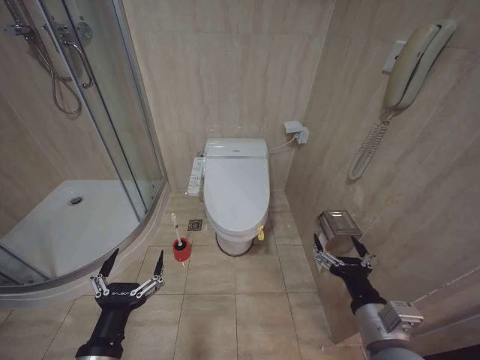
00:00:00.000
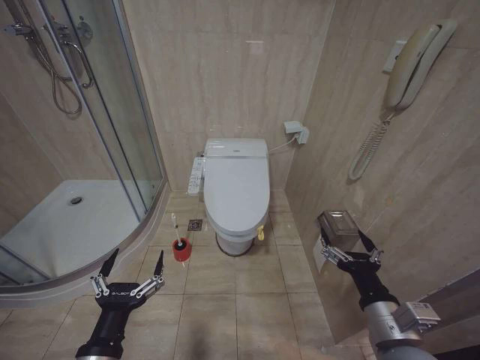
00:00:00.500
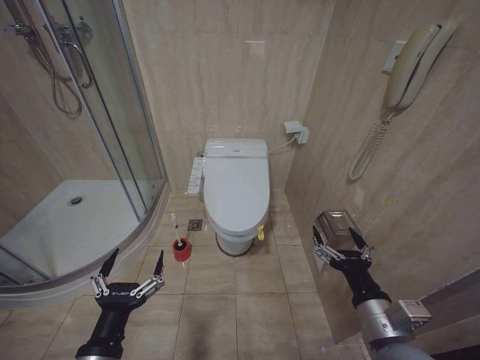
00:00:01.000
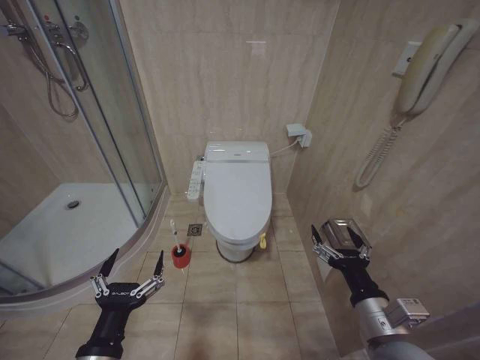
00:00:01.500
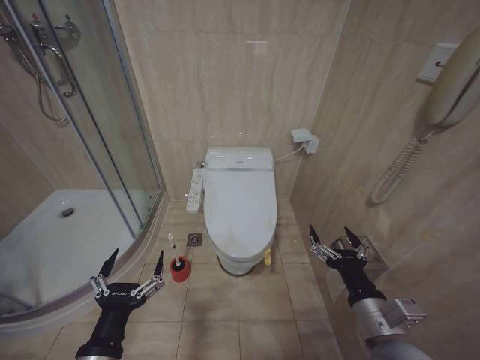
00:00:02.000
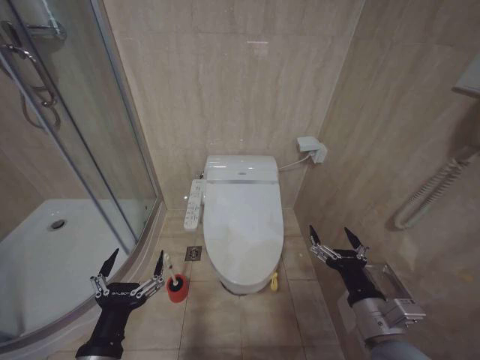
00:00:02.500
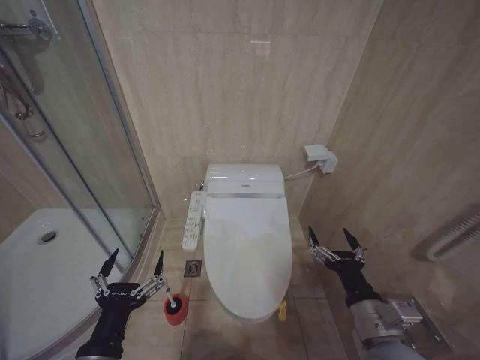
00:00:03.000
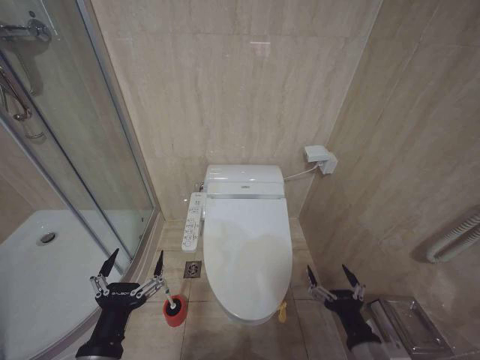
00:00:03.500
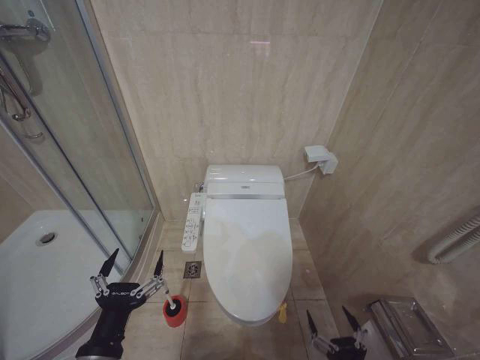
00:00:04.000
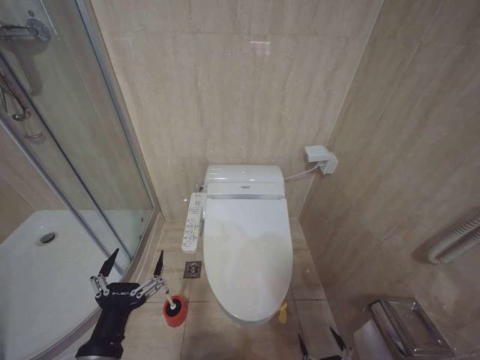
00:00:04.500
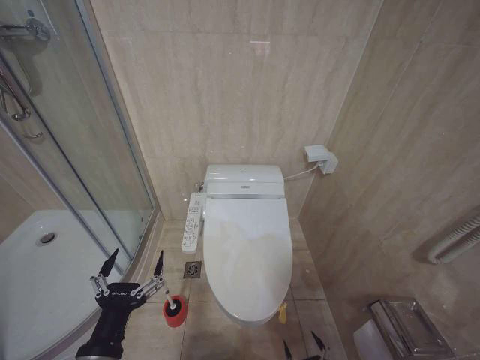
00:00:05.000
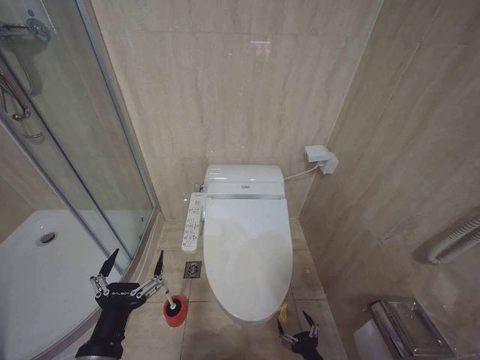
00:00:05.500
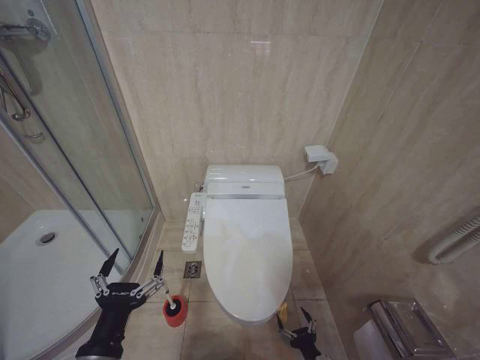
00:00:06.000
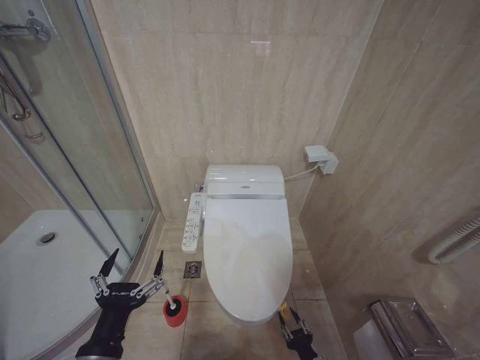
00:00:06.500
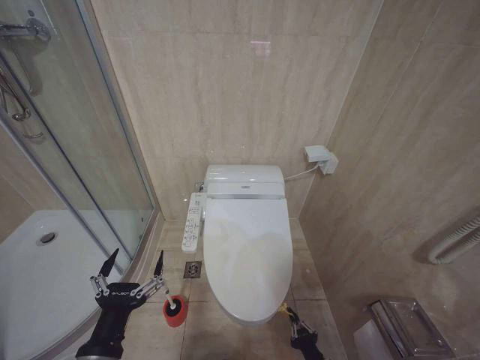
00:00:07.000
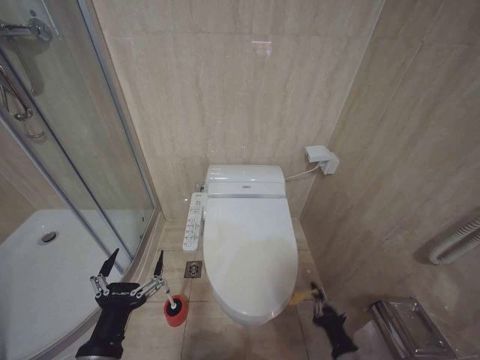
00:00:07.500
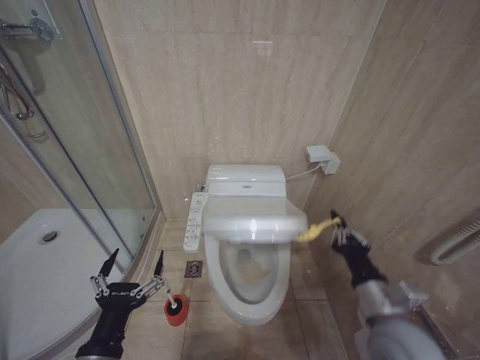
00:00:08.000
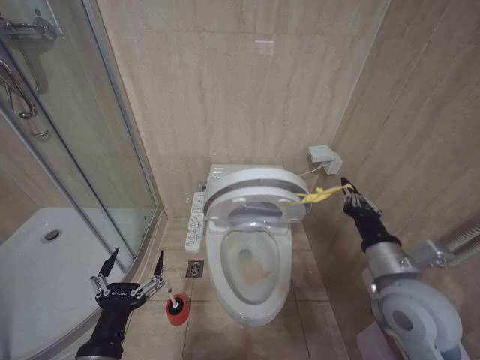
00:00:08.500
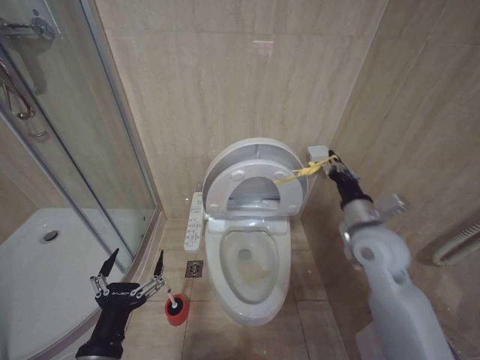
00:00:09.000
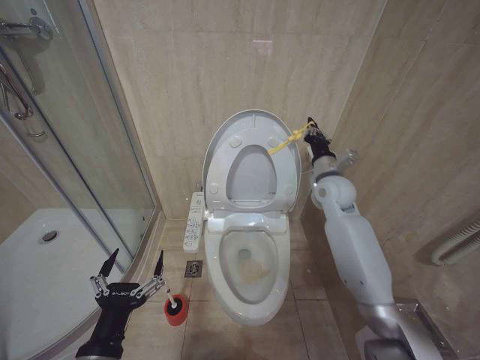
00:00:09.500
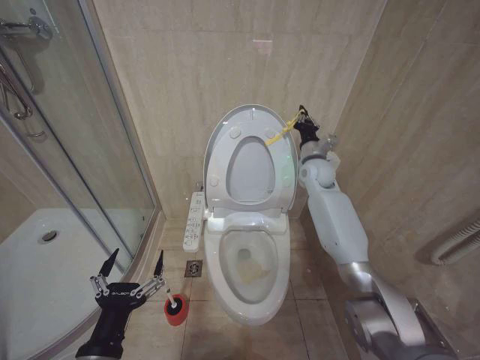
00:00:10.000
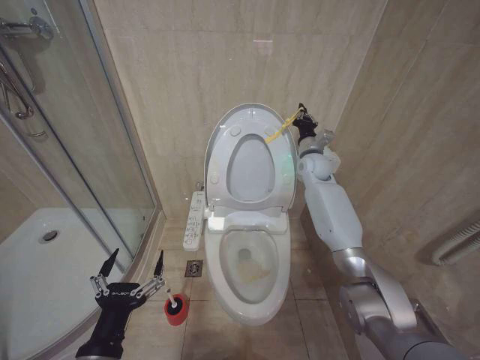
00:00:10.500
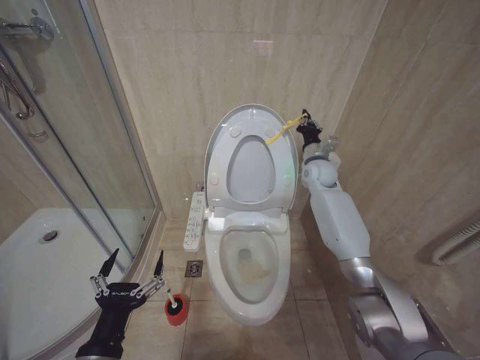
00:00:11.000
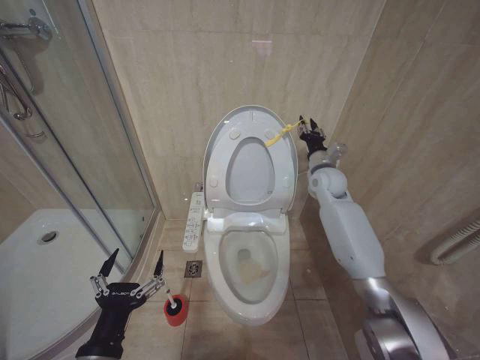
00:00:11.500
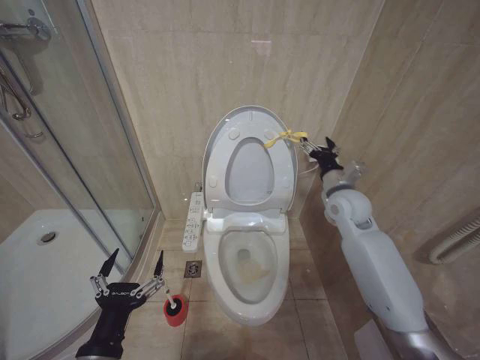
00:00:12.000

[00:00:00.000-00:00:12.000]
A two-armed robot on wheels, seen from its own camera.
Task of the whole recording: Open the toilet lid, clean the toilet bowl with a toilet brush, close the toilet lid, and flush.
00:00:02.000 to 00:00:04.000: The right gripper heads downward and backward, covering roughly 20 cm.
00:00:04.000 to 00:00:06.000: The right gripper is displaced downward and forward by about 20 cm.
00:00:06.000 to 00:00:08.000: The right gripper moves upward, approximately 30 cm, and closes its fingers.
00:00:08.000 to 00:00:10.000: The right gripper moves forward, some 35 cm.
00:00:10.000 to 00:00:12.000: The right gripper moves backward, approximately 10 cm, and opens up.

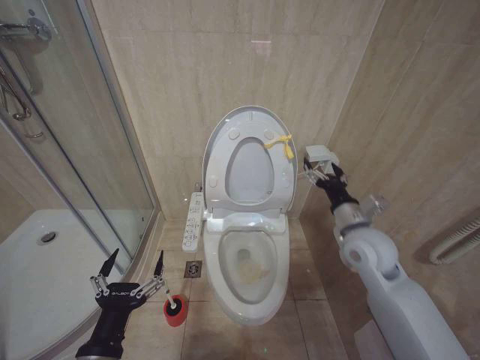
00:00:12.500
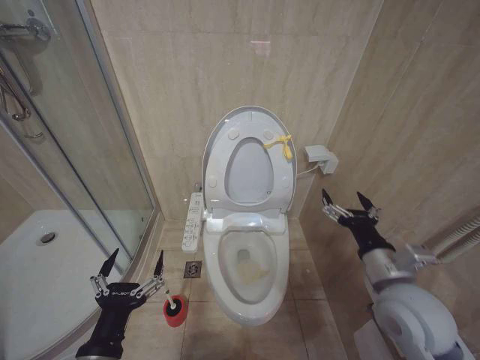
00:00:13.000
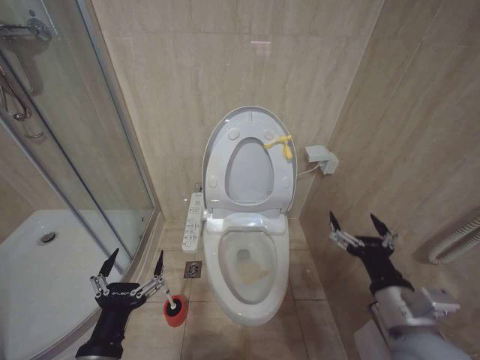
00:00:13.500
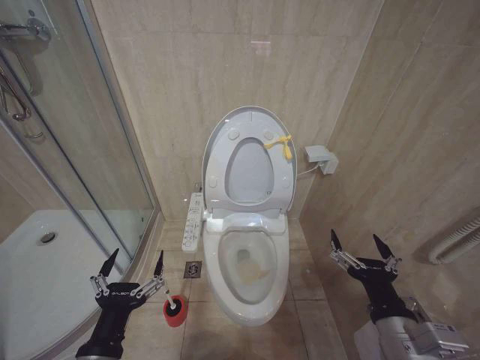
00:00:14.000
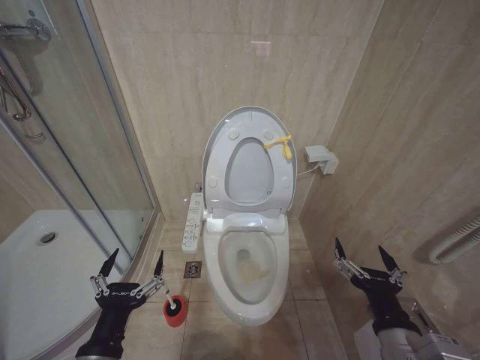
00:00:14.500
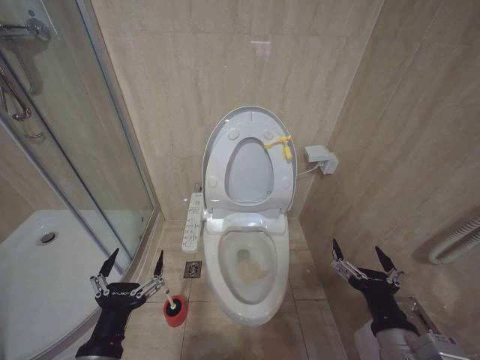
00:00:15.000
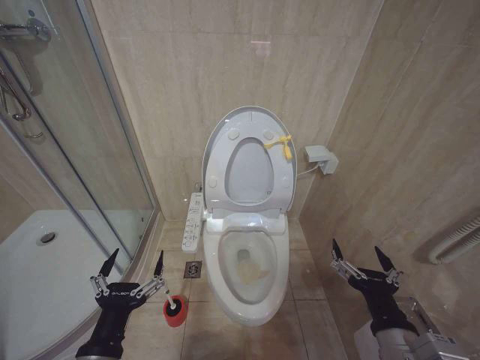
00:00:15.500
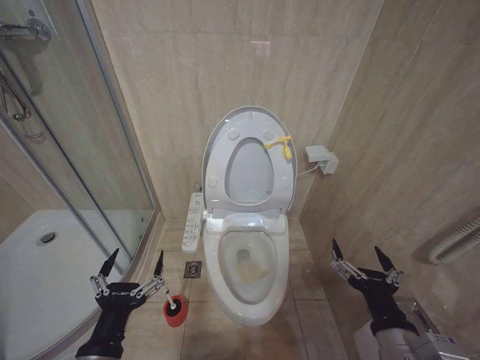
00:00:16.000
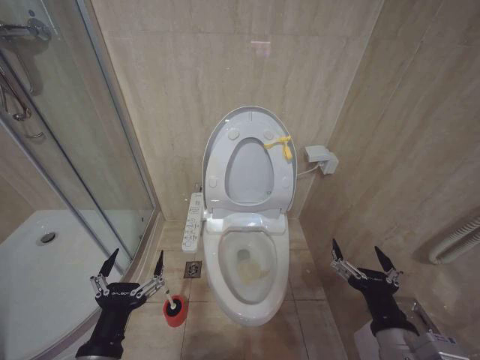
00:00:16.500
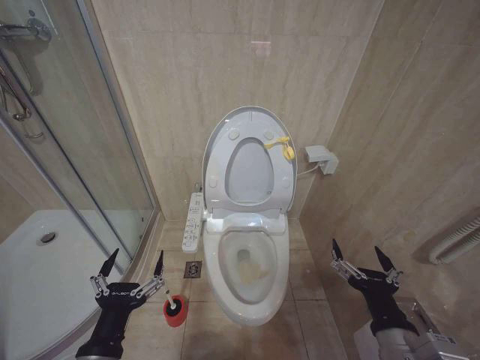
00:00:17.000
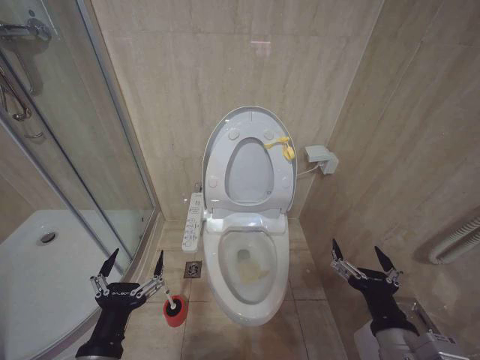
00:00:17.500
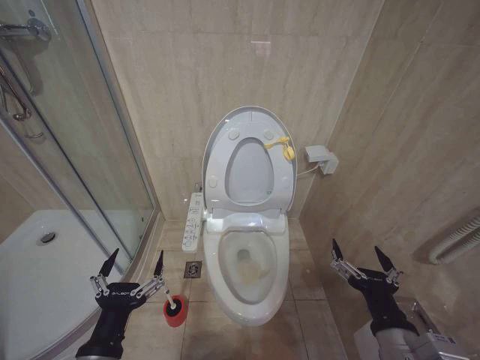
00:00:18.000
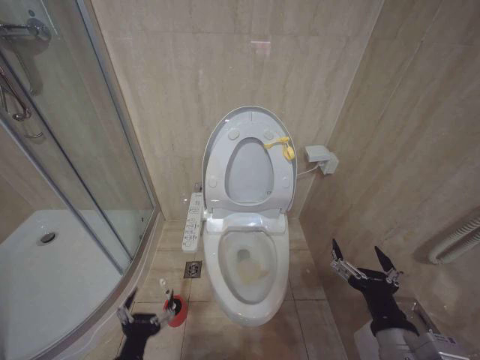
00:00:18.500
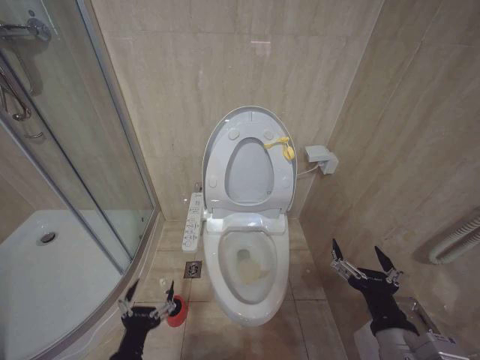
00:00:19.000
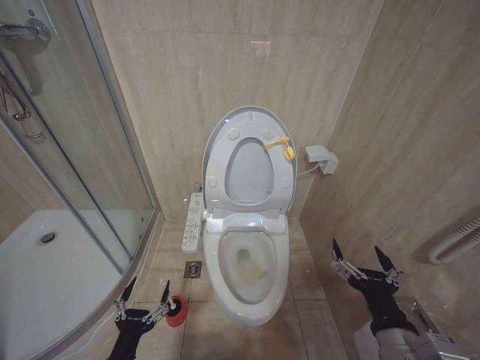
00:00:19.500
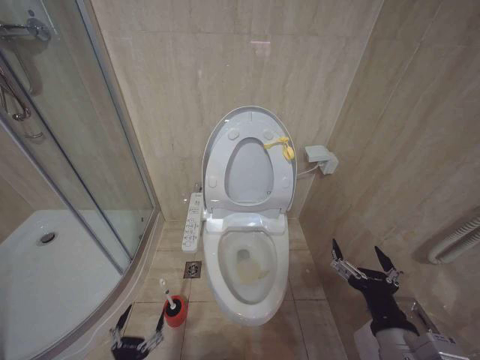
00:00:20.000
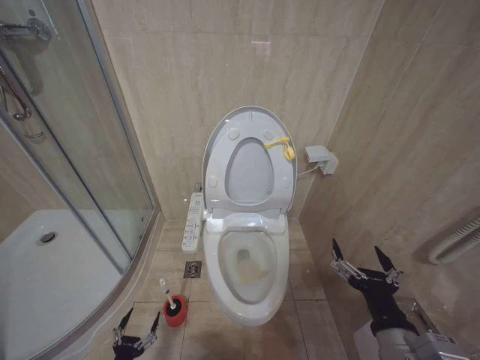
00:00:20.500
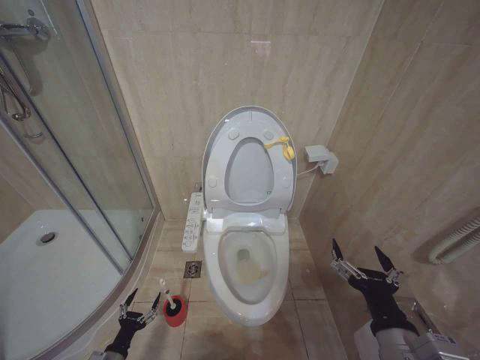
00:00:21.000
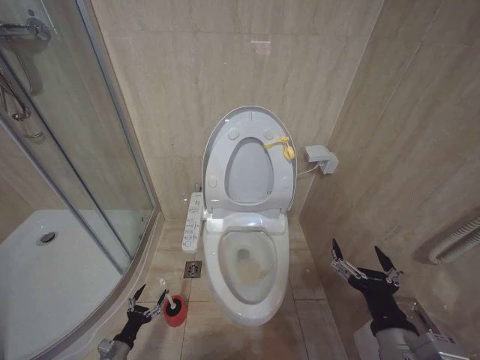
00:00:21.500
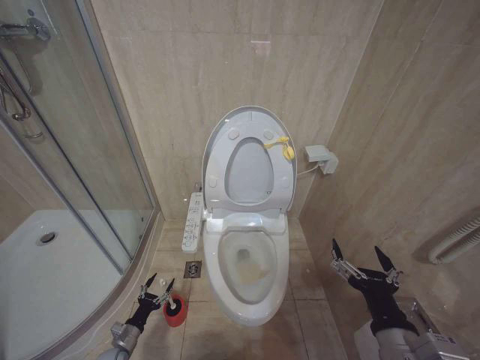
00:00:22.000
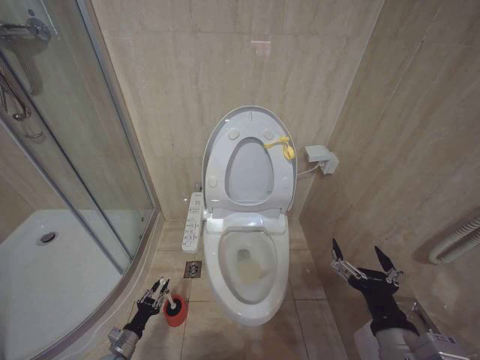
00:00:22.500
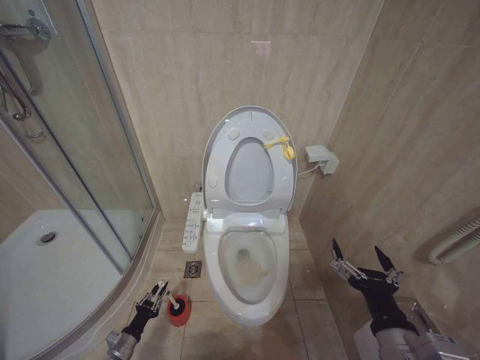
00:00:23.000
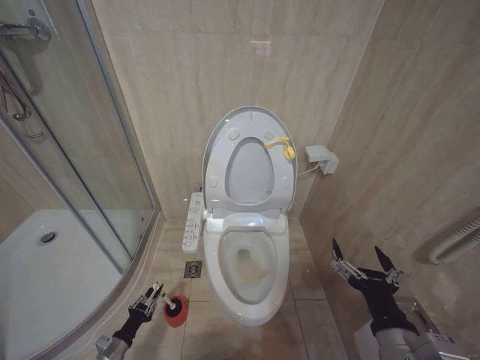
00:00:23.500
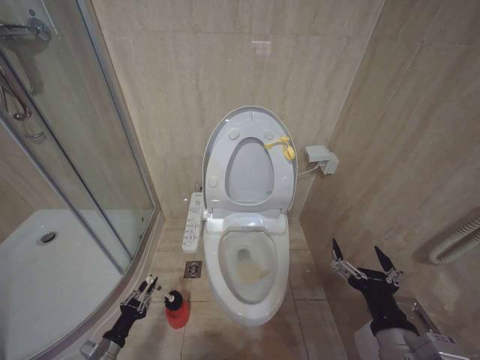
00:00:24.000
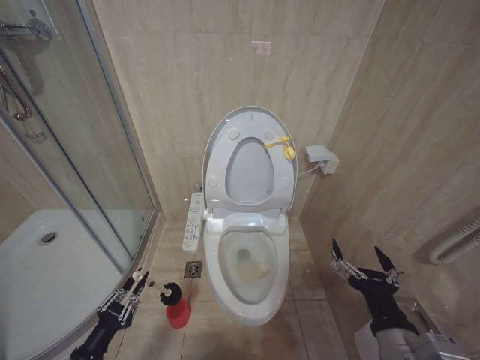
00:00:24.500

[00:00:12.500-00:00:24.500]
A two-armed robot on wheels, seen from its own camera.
Task of the whole recording: Open the toilet lid, clean the toilet bowl with a toilet brush, close the toilet lid, and flush.
00:00:12.500 to 00:00:14.500: The right gripper is displaced backward by some 25 cm.
00:00:14.500 to 00:00:16.500: Both grippers stay put.
00:00:16.500 to 00:00:18.500: The left gripper travels downward by some 10 cm.
00:00:18.500 to 00:00:20.500: The left gripper moves downward and to the left, roughly 25 cm.
00:00:20.500 to 00:00:22.500: The left gripper is displaced forward and downward by approximately 15 cm.
00:00:22.500 to 00:00:24.500: The left gripper shifts some 20 cm upward and backward, and closes its fingers.

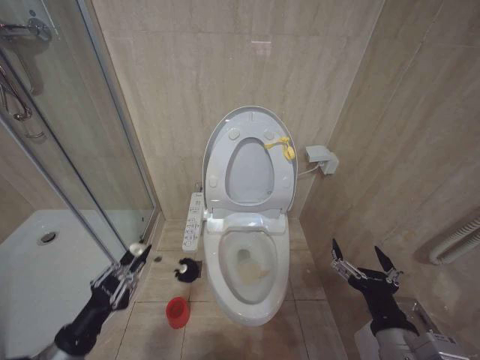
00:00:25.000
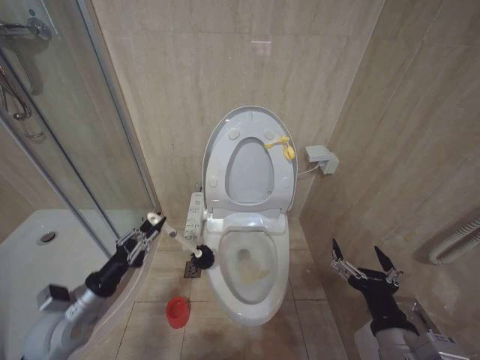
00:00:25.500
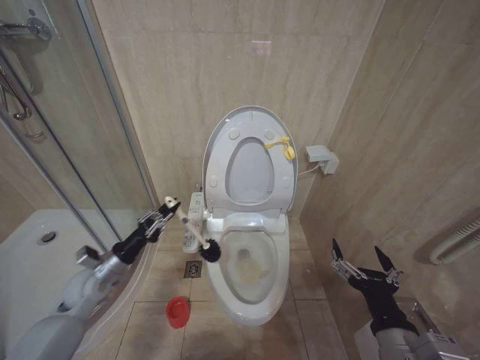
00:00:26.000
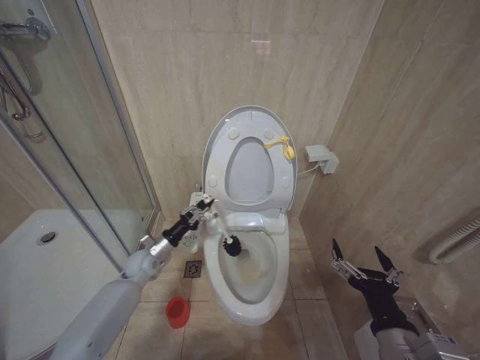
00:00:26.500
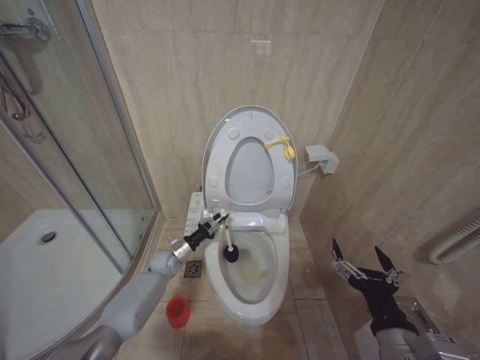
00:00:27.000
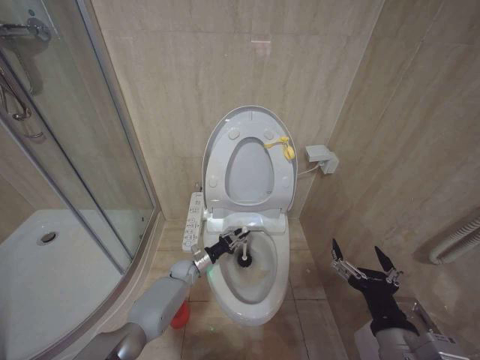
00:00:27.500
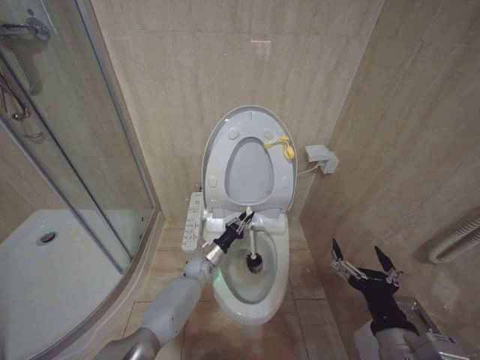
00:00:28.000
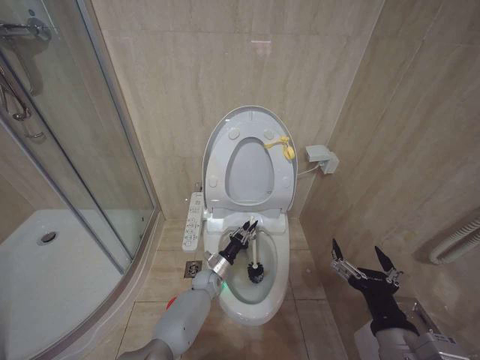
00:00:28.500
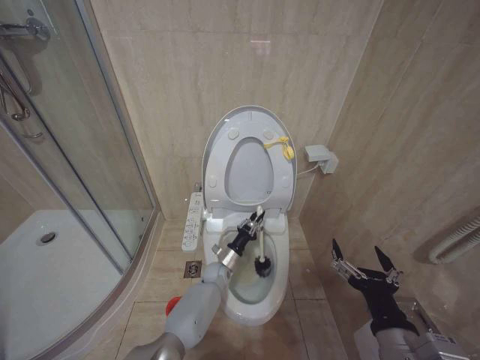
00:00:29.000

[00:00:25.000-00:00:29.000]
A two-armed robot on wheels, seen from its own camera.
Task of the whole recording: Open the toilet lid, clean the toilet bowl with a toilet brush, close the toilet lid, and flush.
00:00:25.000 to 00:00:27.000: The left gripper is displaced forward by approximately 35 cm.
00:00:27.000 to 00:00:29.000: The left gripper heads to the right, covering some 20 cm.
